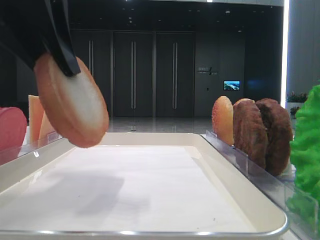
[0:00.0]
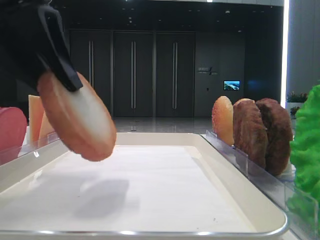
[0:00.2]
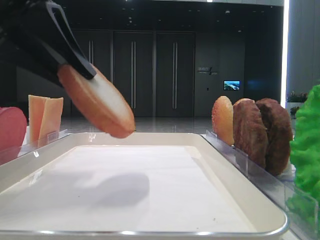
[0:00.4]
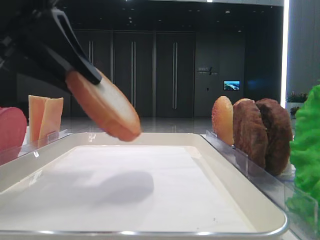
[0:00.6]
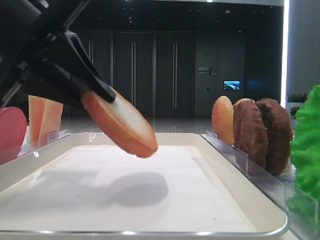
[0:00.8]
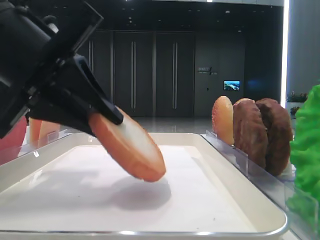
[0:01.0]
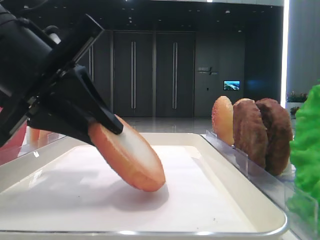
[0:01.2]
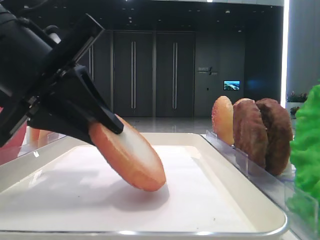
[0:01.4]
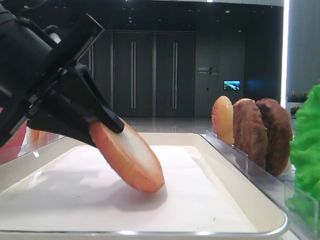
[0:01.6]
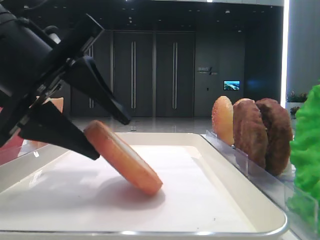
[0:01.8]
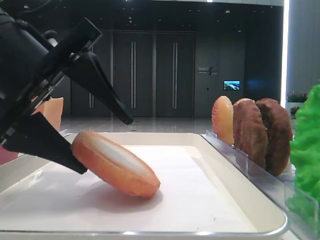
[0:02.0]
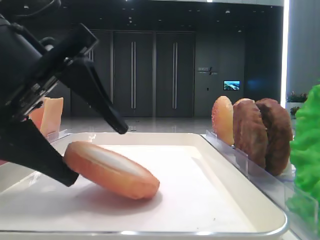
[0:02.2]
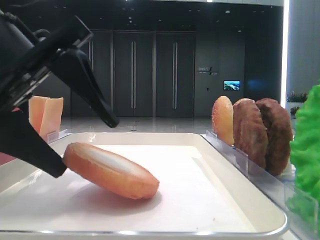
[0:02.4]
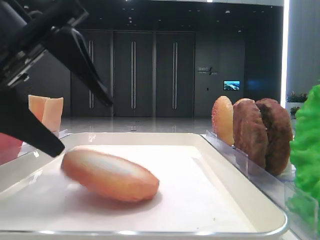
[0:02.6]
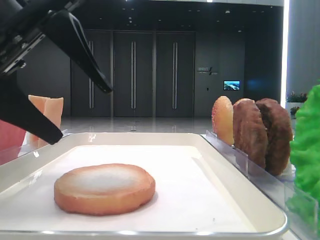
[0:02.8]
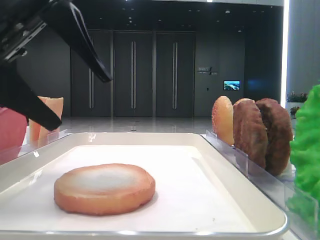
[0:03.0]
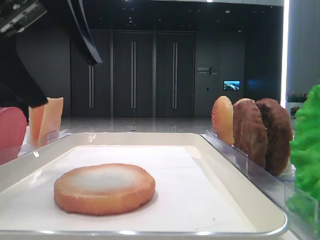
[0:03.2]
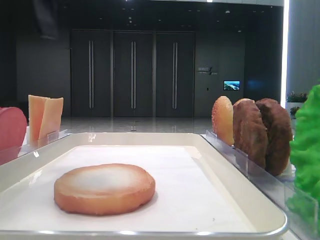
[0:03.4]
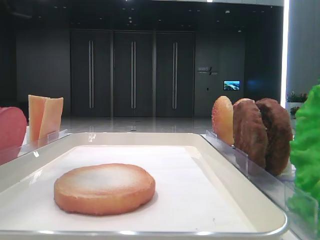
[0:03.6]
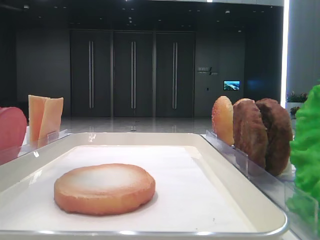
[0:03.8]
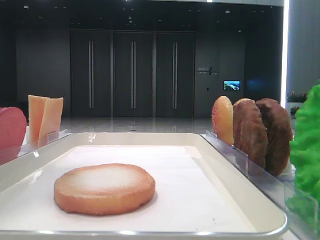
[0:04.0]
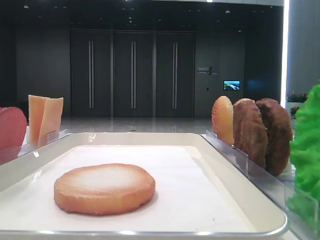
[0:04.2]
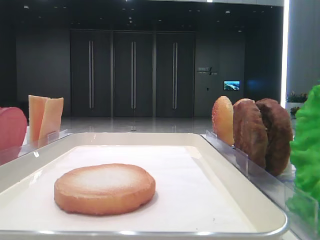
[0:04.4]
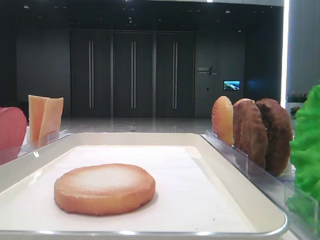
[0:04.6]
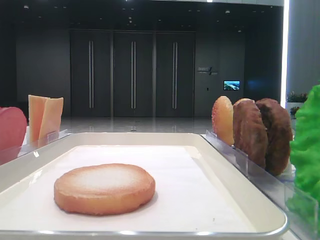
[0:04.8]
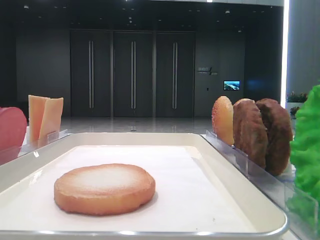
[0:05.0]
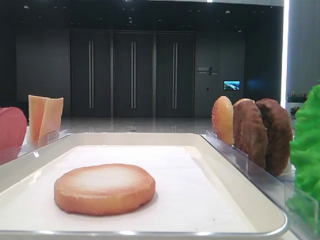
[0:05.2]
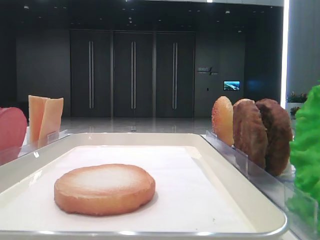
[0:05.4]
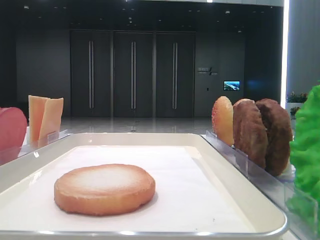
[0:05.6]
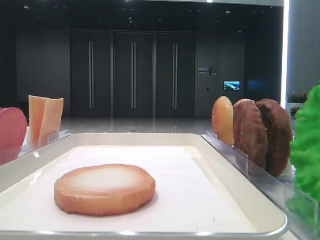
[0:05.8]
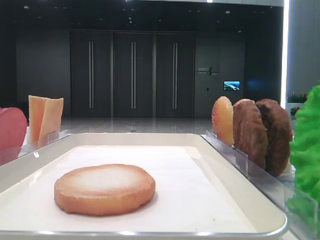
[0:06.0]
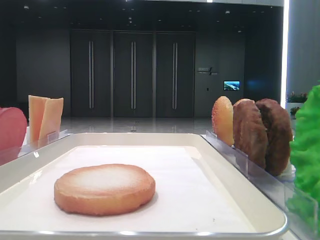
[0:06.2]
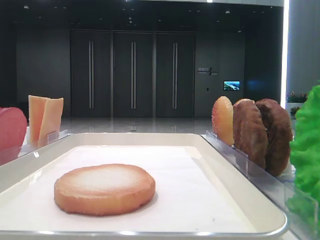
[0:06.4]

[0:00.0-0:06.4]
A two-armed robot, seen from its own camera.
Step, 0:00.0 to 0:02.6: Place the bread on the tray with the left hand.
0:00.0 to 0:01.6: The left gripper moves downward, some 10 cm.
0:01.6 to 0:03.2: The left gripper goes about 5 cm upward, and opens.
0:03.2 to 0:04.8: The left gripper moves to the left and upward, approximately 20 cm.

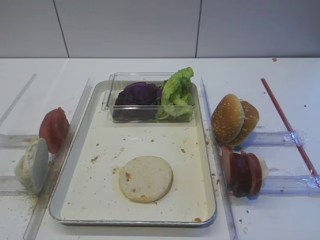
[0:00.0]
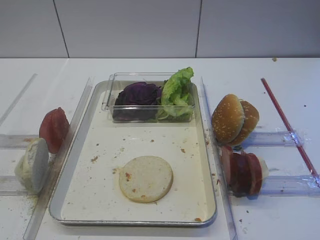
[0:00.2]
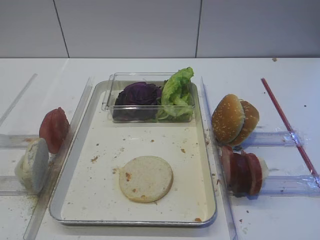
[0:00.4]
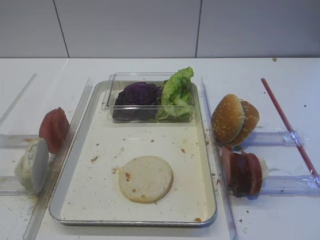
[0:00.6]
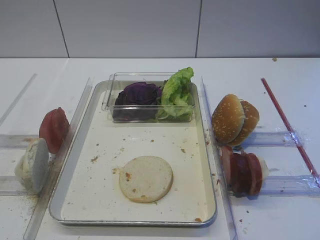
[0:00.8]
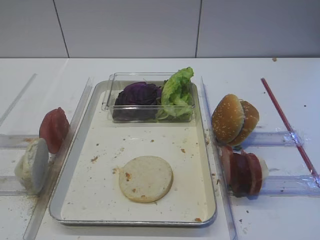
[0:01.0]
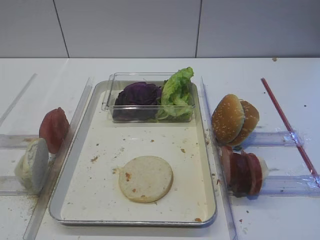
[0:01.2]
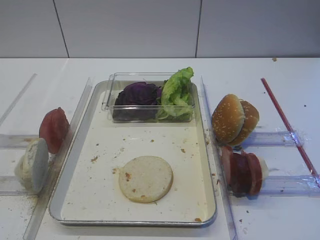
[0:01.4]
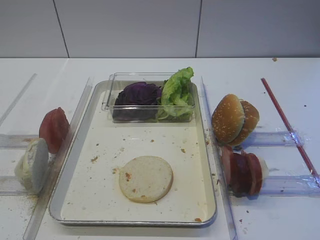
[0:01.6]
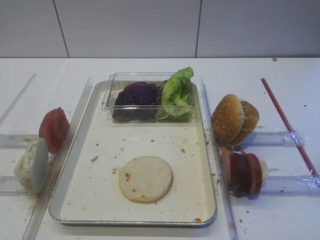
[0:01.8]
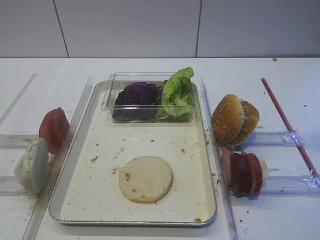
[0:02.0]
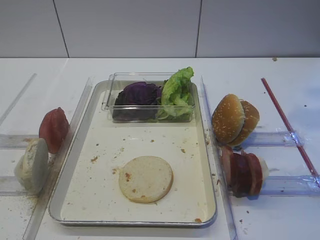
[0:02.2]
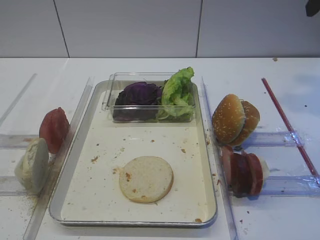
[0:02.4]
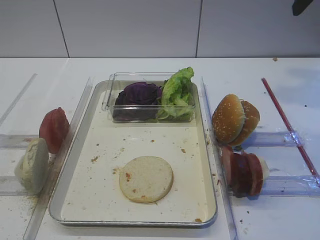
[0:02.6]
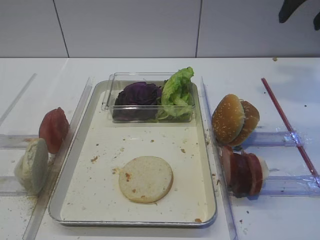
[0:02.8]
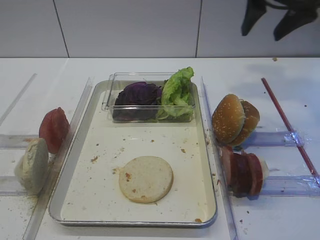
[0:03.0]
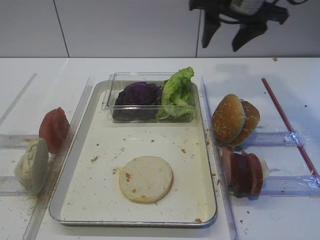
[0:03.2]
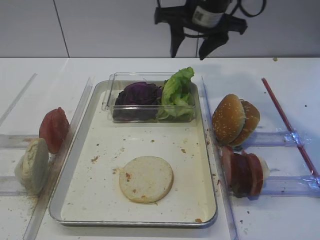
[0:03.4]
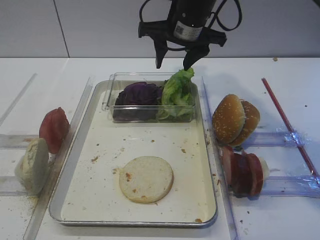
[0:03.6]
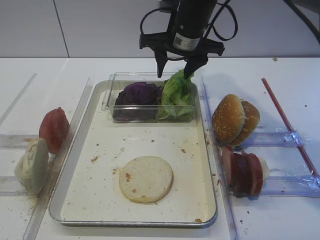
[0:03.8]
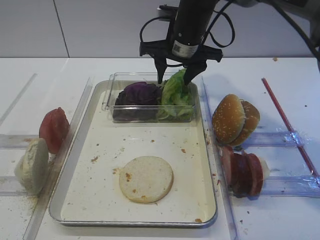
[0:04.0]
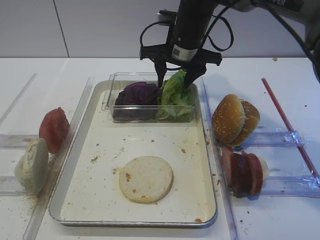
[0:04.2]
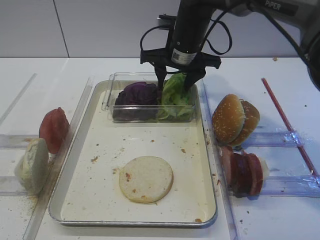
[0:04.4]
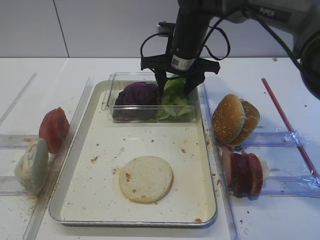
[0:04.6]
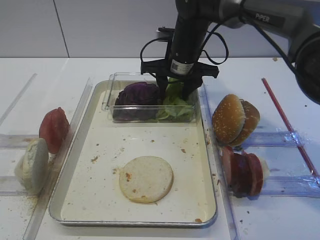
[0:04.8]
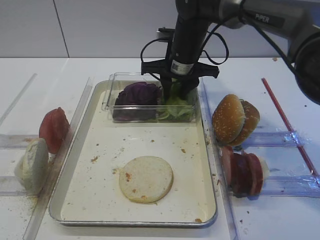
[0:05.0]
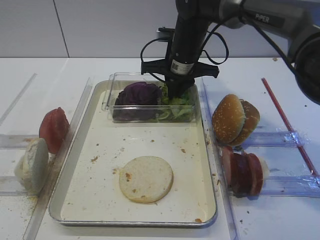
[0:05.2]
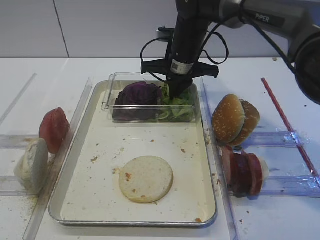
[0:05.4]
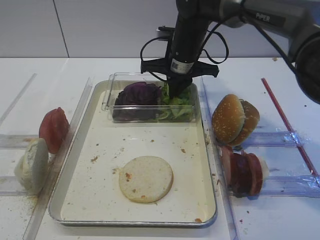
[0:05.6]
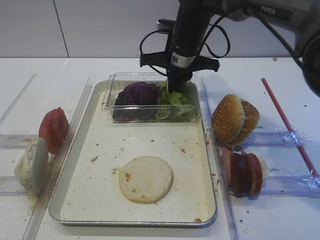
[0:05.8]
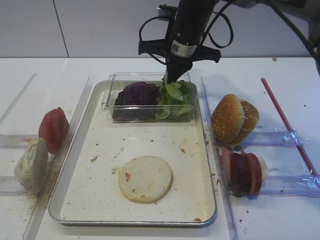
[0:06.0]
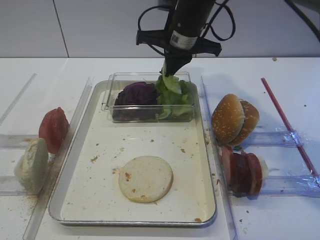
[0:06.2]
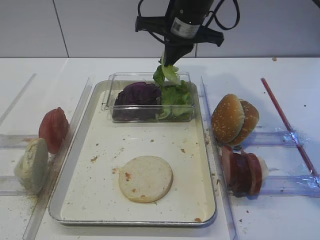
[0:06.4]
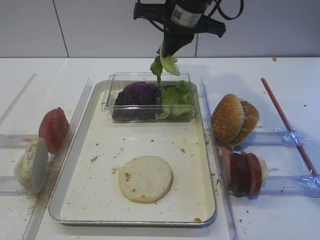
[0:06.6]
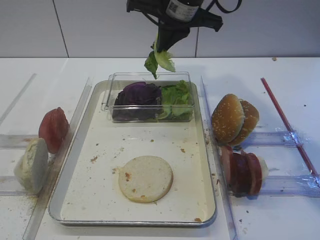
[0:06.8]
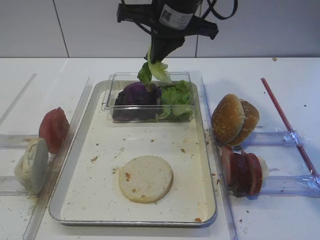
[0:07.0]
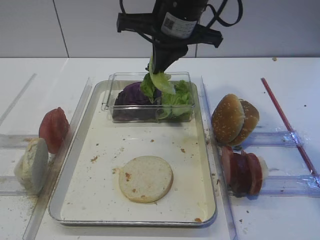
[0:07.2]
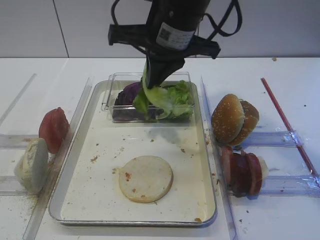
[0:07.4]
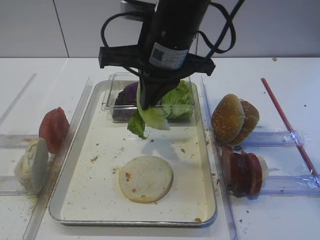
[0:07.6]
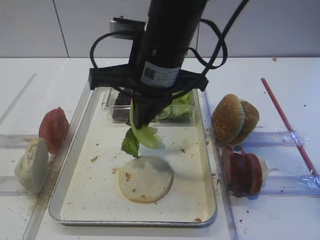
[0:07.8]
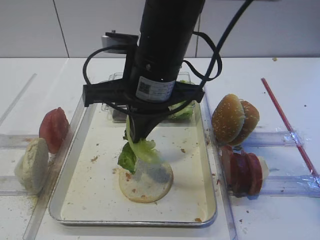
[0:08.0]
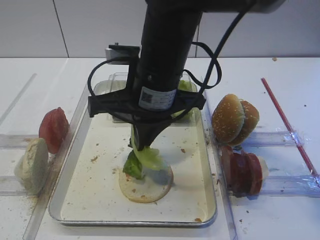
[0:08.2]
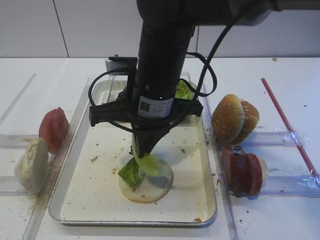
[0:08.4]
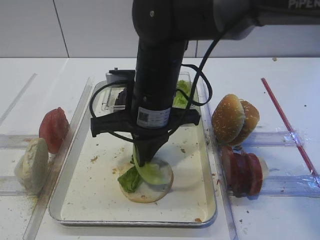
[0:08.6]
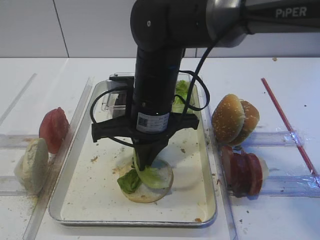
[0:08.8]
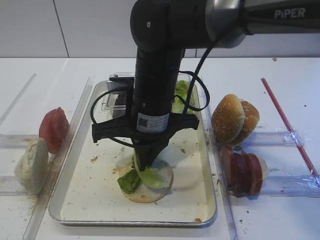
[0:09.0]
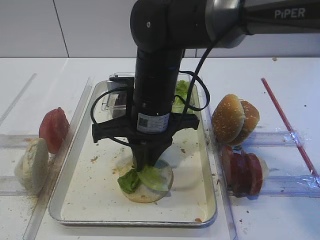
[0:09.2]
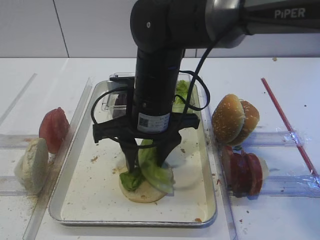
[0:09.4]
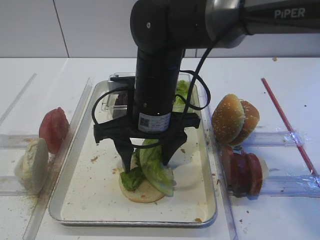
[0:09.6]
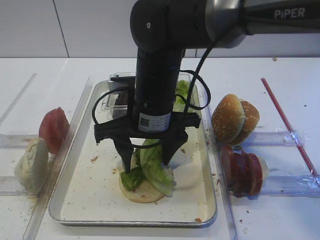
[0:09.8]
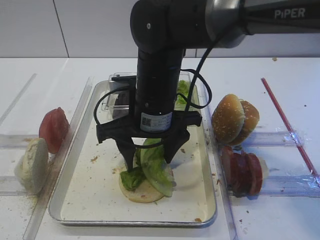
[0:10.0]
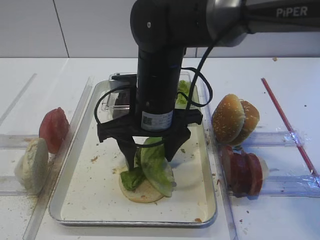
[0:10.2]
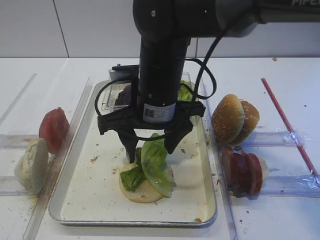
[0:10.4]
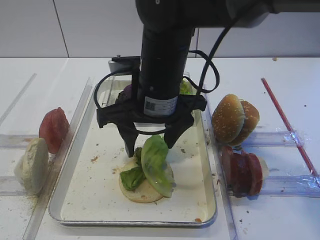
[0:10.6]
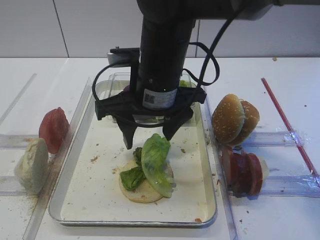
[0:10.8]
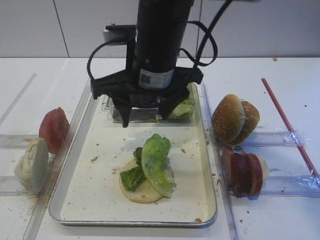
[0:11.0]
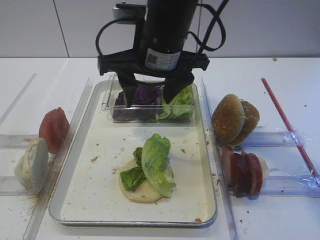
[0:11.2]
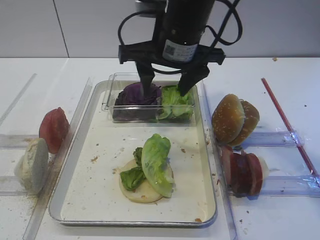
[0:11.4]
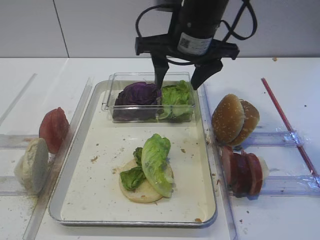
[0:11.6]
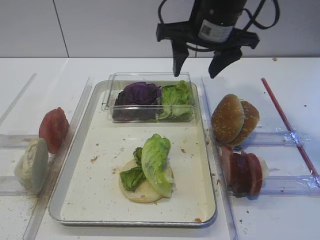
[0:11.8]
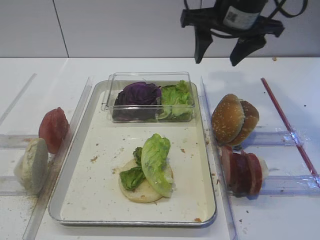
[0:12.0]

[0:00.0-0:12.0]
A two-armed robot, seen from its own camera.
Step, 0:00.0 to 0:06.6: Pick up the lettuce leaf with the right gripper.
Step, 0:06.8 to 0:11.2: Place the lettuce leaf on the bread slice with the right gripper.
0:01.6 to 0:03.0: The right gripper travels forward by approximately 30 cm.
0:03.0 to 0:04.4: The right gripper is displaced to the left, downward and forward by roughly 20 cm.
0:04.4 to 0:06.0: The right gripper closes up.
0:06.0 to 0:07.6: The right gripper shifts some 15 cm backward and upward.
0:07.6 to 0:09.0: The right gripper moves downward, roughly 10 cm.
0:09.0 to 0:10.4: The right gripper opens its fingers.
0:10.4 to 0:12.0: The right gripper travels to the right, upward and forward by about 20 cm.

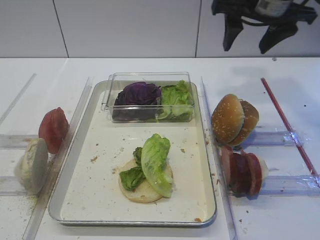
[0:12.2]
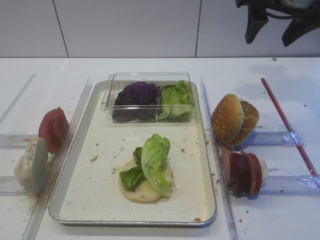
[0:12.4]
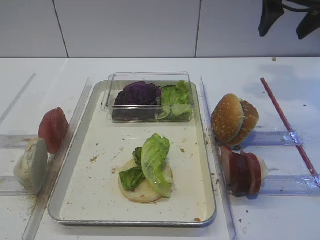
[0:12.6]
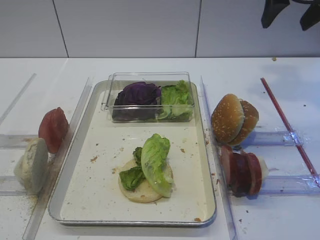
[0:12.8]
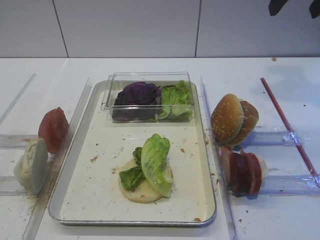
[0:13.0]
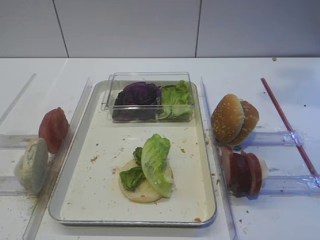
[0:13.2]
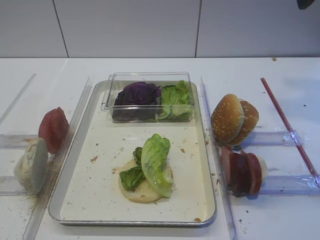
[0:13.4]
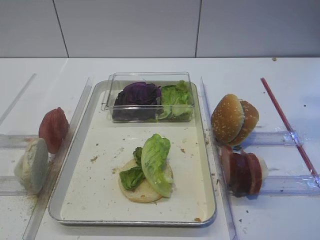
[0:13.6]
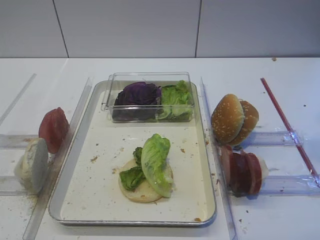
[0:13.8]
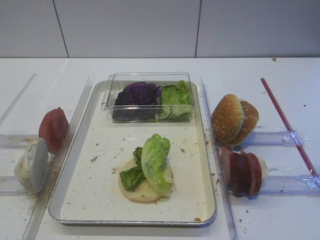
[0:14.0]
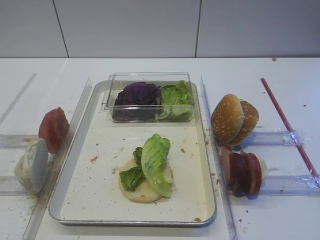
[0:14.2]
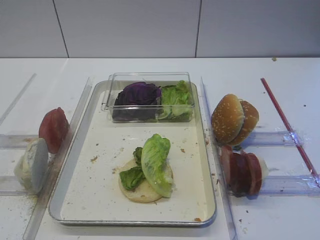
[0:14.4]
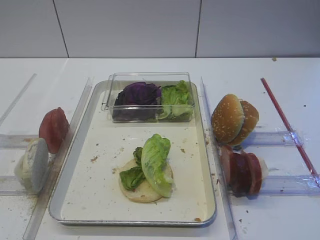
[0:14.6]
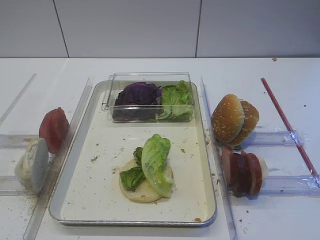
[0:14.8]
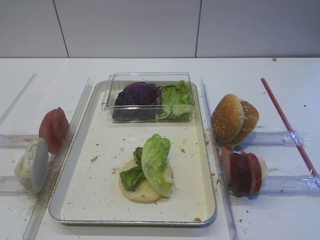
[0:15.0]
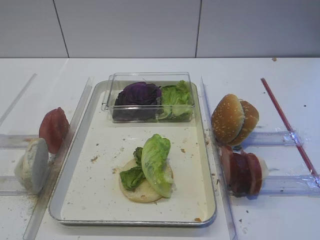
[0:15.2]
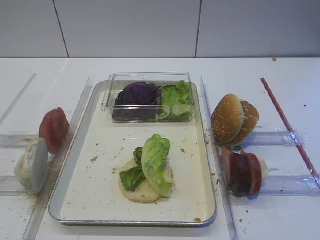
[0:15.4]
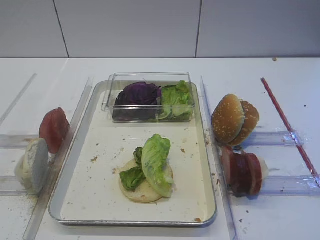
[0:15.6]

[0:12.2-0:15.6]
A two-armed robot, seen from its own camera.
0:12.2 to 0:13.8: The right gripper moves backward, approximately 20 cm.
